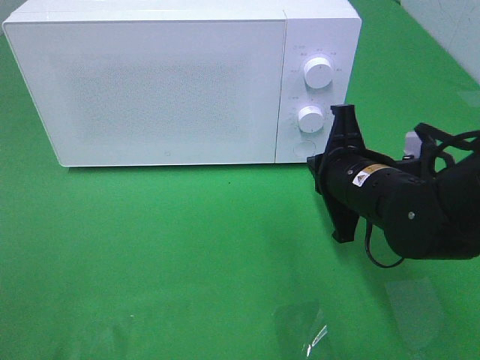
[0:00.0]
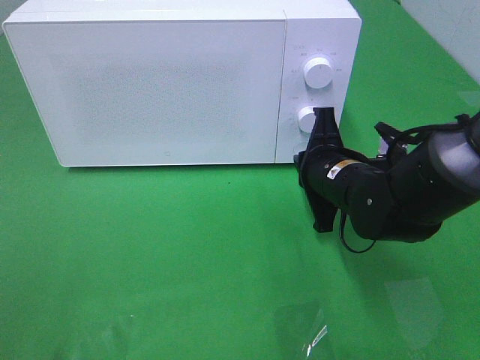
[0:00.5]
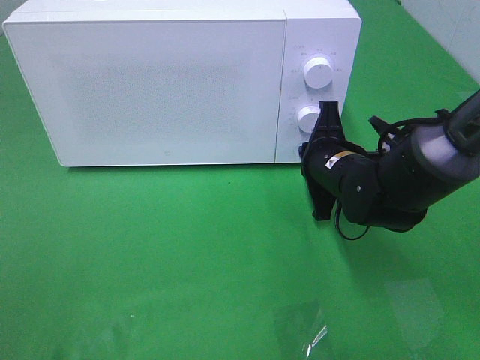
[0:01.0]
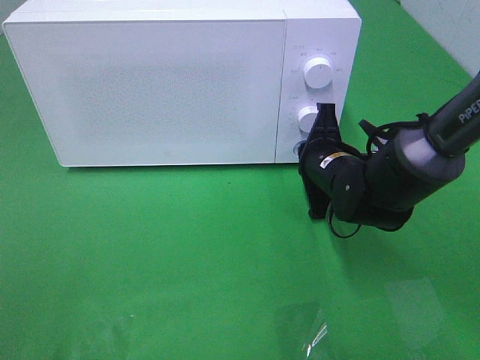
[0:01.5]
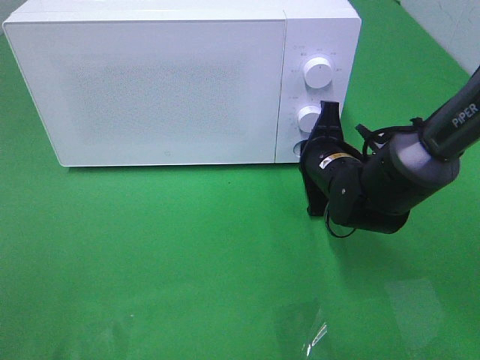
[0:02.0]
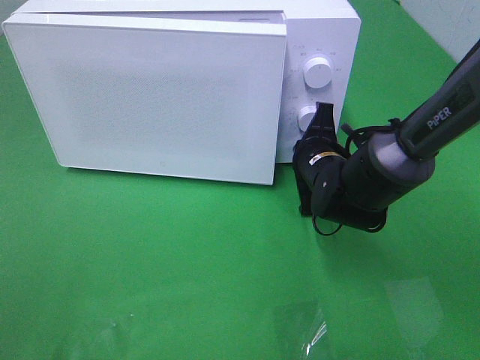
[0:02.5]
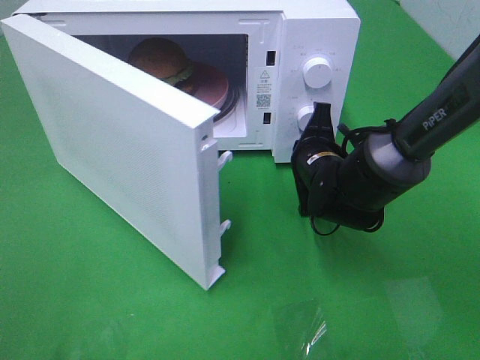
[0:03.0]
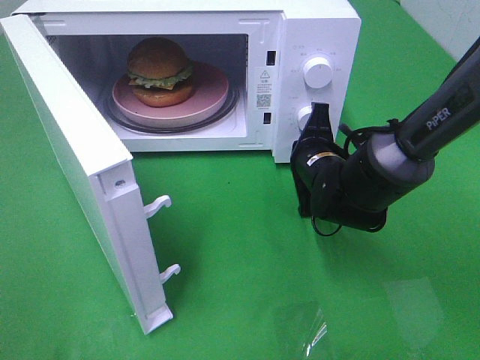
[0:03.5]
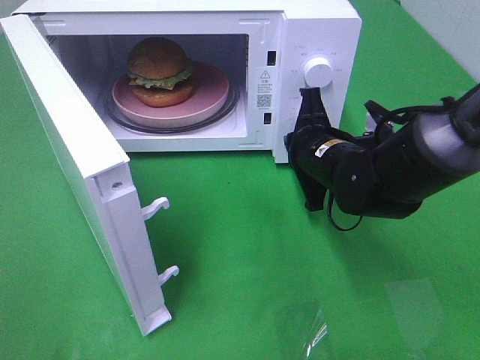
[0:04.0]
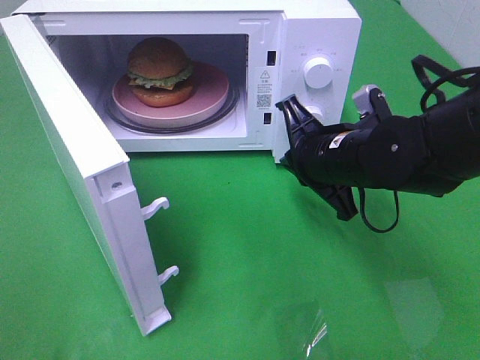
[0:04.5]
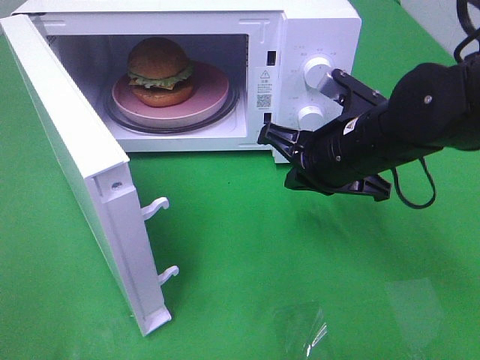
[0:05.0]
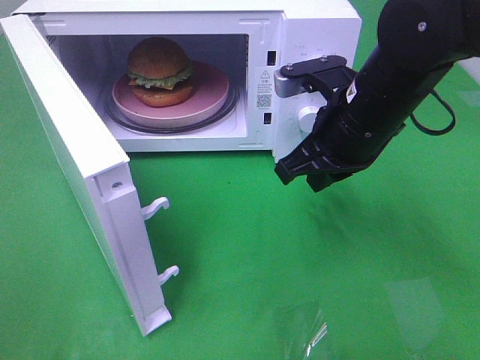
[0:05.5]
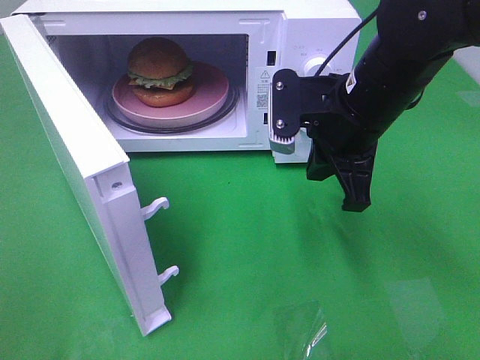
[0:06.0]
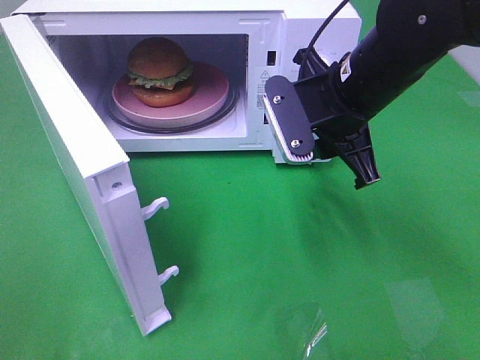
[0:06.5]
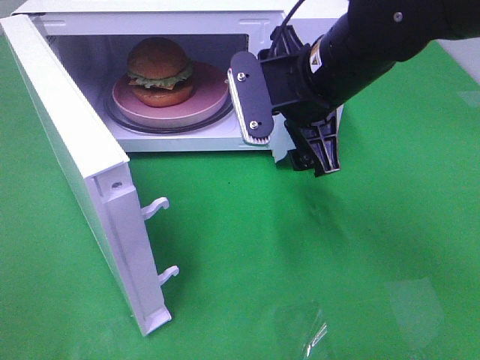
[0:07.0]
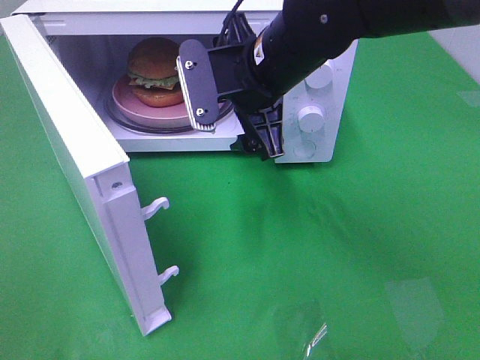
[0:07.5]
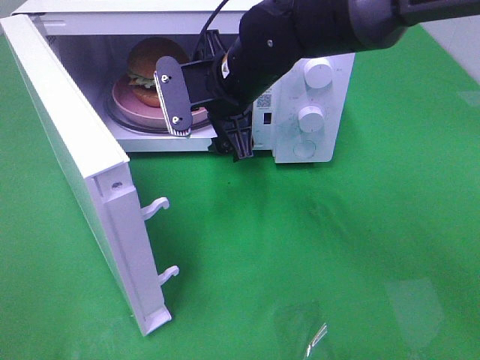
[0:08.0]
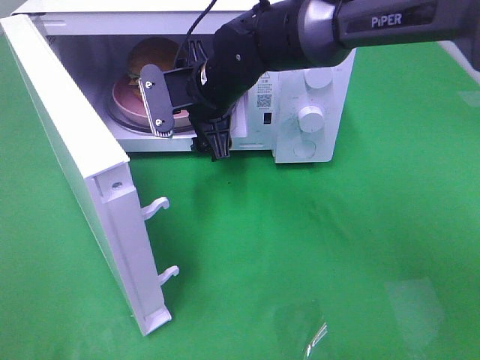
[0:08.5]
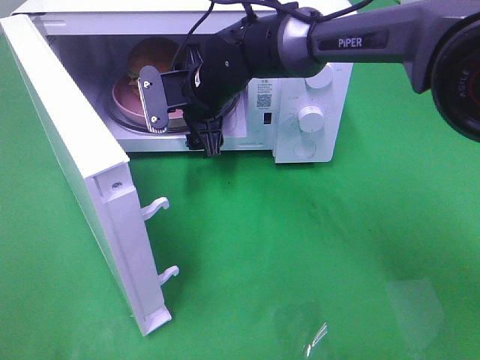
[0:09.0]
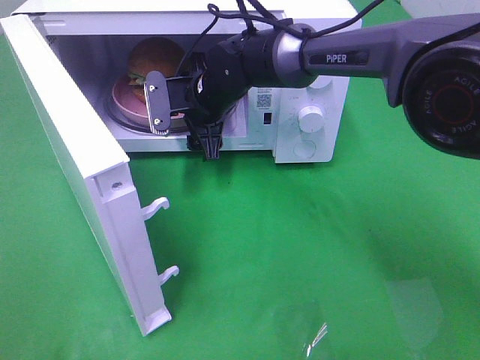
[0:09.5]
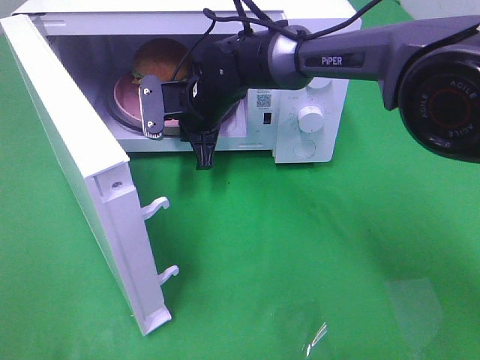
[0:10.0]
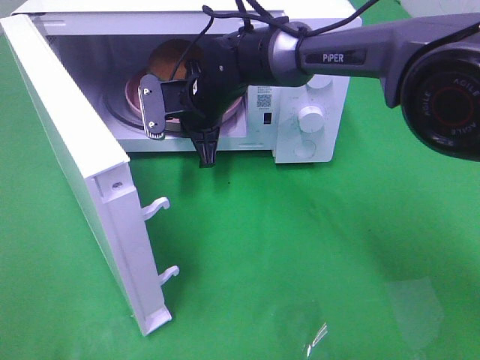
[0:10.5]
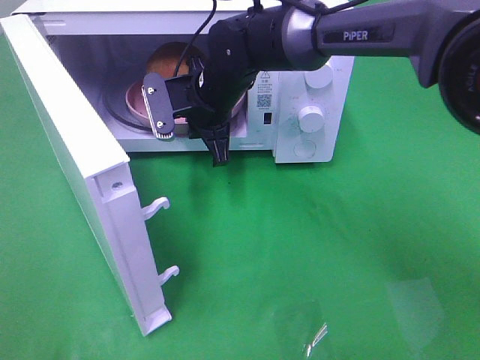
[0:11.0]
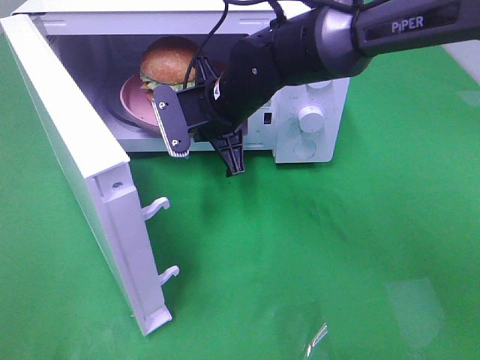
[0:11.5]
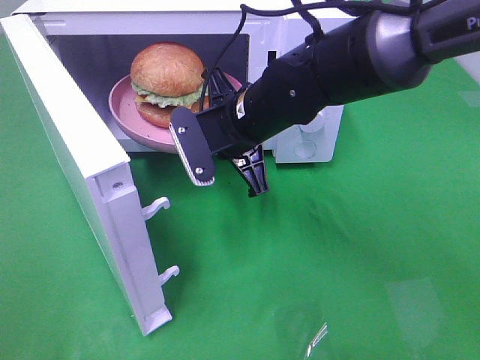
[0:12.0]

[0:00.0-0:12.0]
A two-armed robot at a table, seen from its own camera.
Task of the whole recording: Heat the burger.
Step, 0:00.0 to 0:04.0: Right hand: press the switch.
Step, 0:04.5 to 0:10.0: Right hand: grab the plate with the hamburger.
0:00.0 to 0:02.0: The right gripper is displaced forward by roughly 5 cm.
0:04.0 to 0:06.0: The right gripper shifts some 10 cm upward.
0:06.0 to 0:08.0: The right gripper shifts about 15 cm to the left and forward, and opens.
0:08.0 to 0:10.0: The right gripper travels downward and forward by some 10 cm, and closes.
0:10.0 to 0:12.0: The right gripper is displaced backward and to the right by roughly 10 cm.

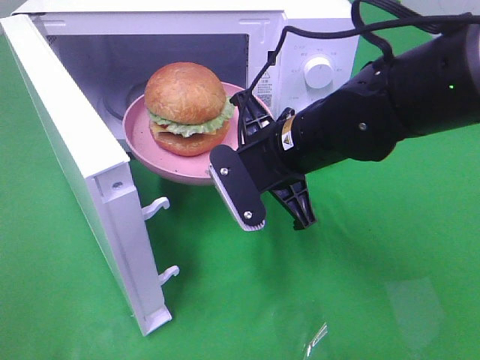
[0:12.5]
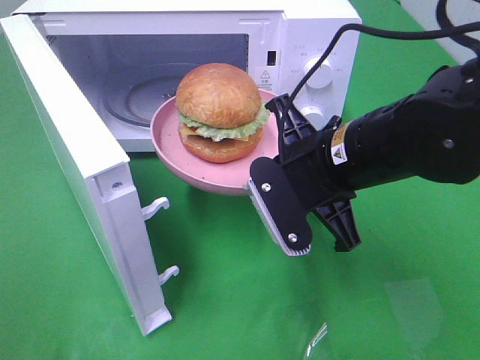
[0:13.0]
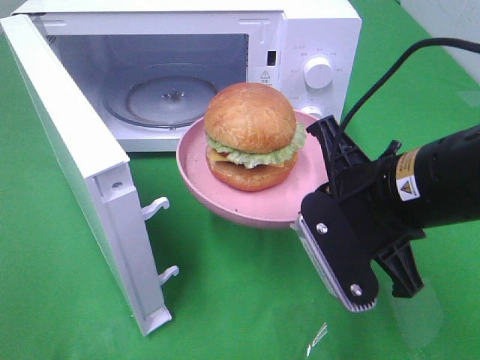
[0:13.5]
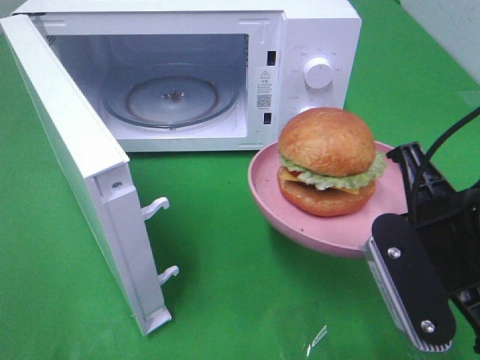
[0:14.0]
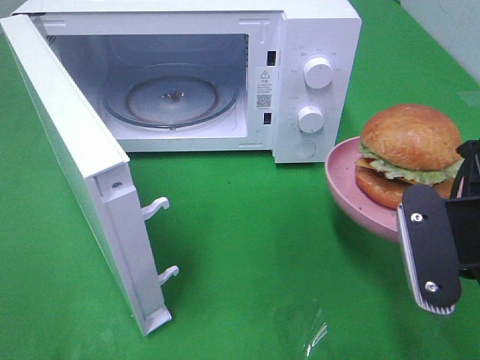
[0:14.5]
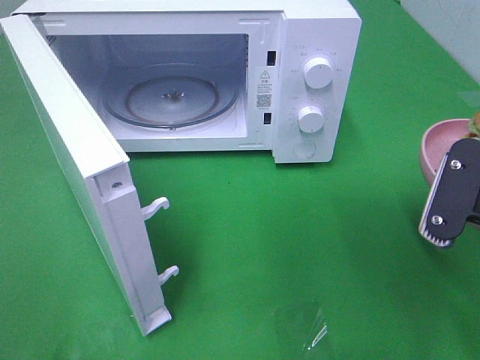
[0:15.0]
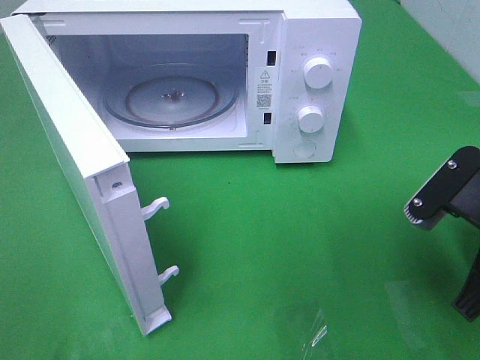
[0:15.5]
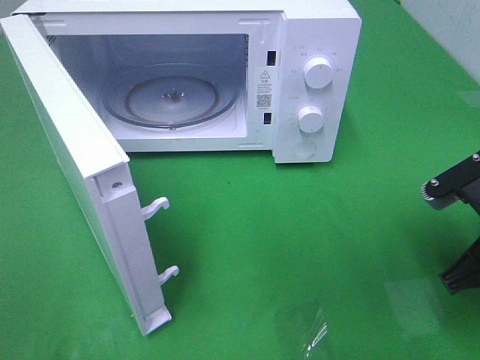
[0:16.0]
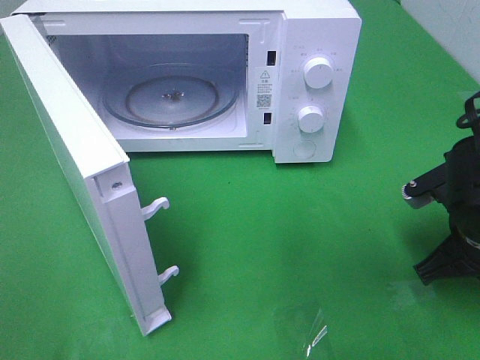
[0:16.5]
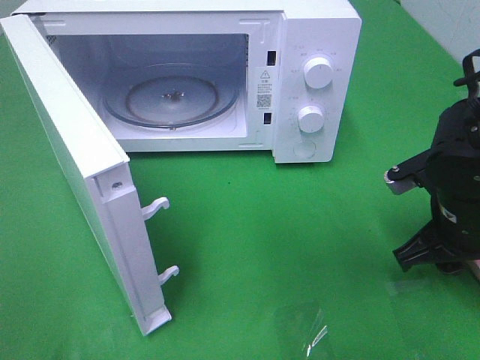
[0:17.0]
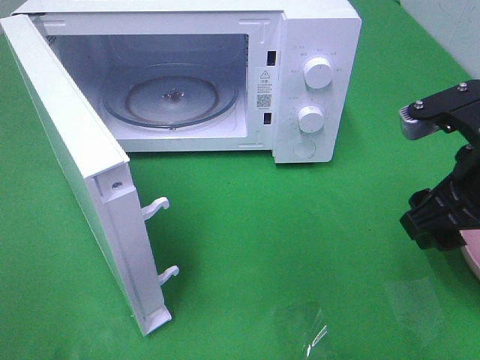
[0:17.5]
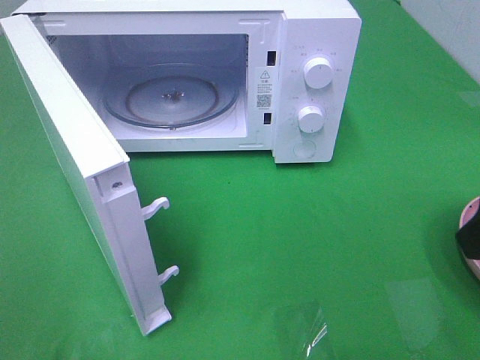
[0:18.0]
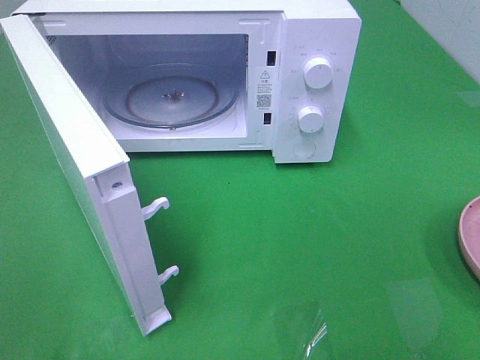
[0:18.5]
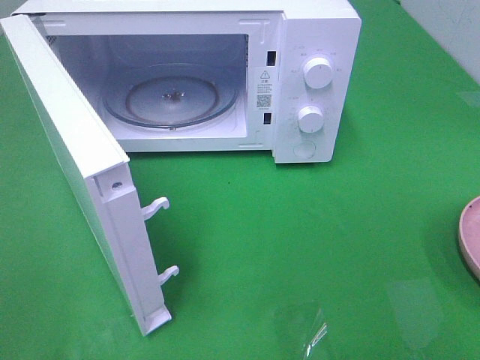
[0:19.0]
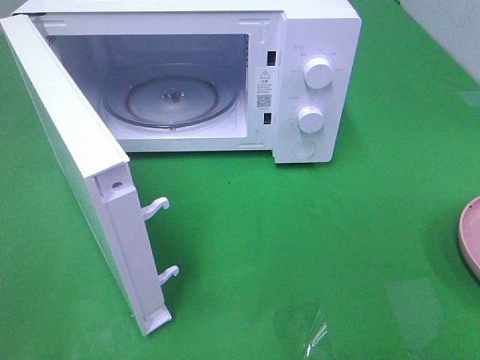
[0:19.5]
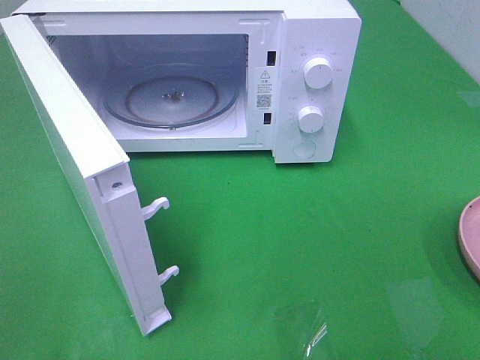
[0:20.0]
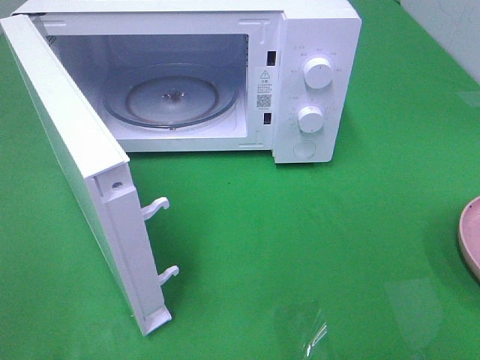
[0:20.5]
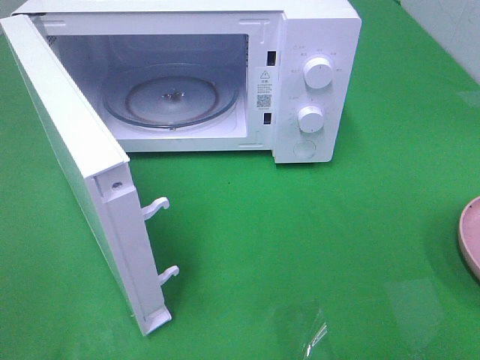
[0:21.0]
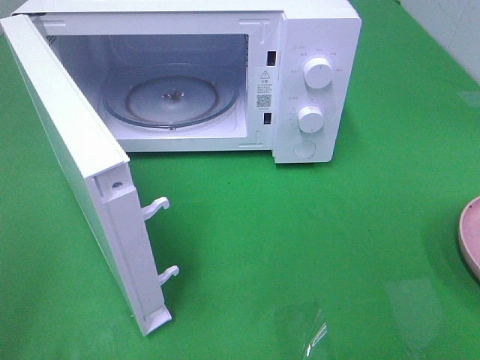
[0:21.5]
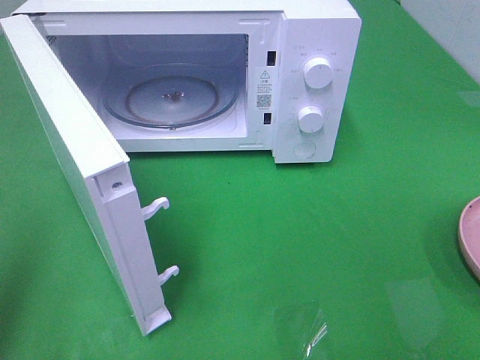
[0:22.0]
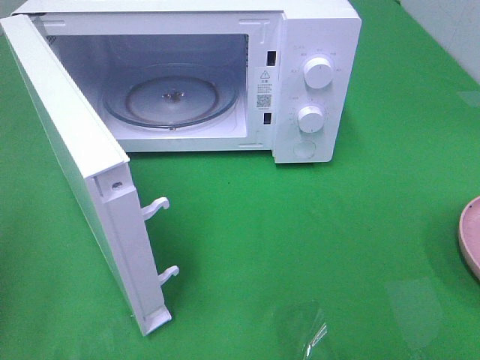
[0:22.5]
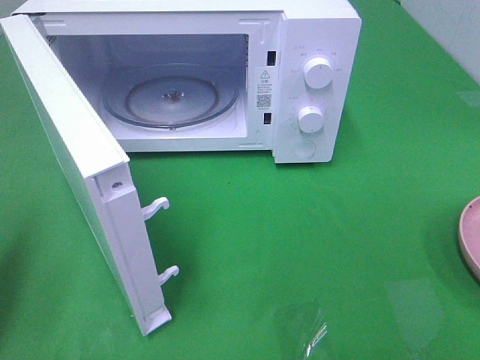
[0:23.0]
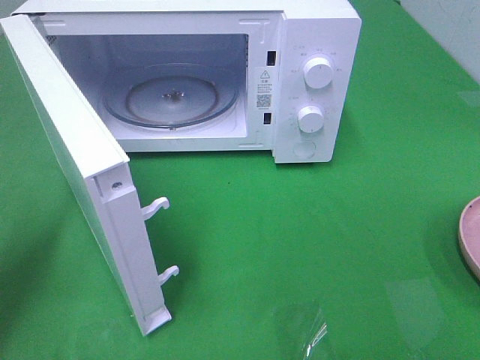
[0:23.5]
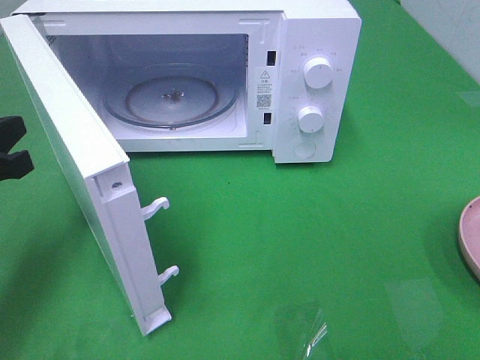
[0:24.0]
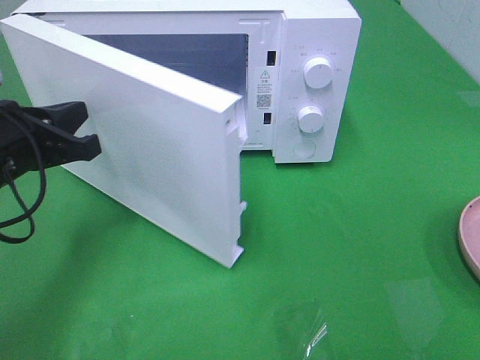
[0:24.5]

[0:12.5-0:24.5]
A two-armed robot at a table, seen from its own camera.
Task of the whole recording: Heat the burger.
Step, 0:12.5 to 0:17.0: Right hand: place the plate on the table.
0:12.5 to 0:14.5: The right gripper goes roughly 20 cm backward and to the right.
0:14.5 to 0:16.5: The right gripper goes approximately 10 cm downward and forward.
0:16.5 to 0:18.5: The right gripper heads upward and backward, covering approximately 25 cm, and opens its fingers.
0:22.5 to 0:24.5: The left gripper shifts some 20 cm forward, to the right and downward.

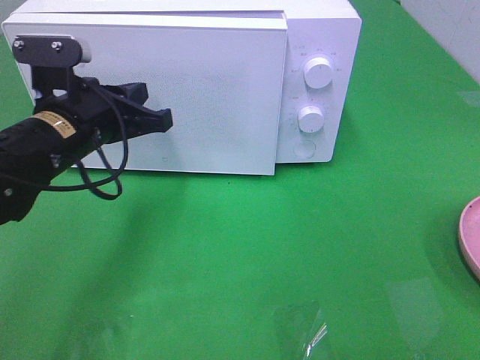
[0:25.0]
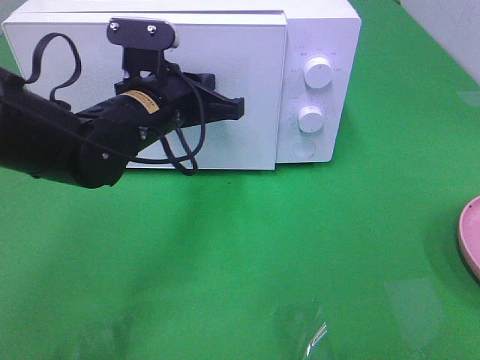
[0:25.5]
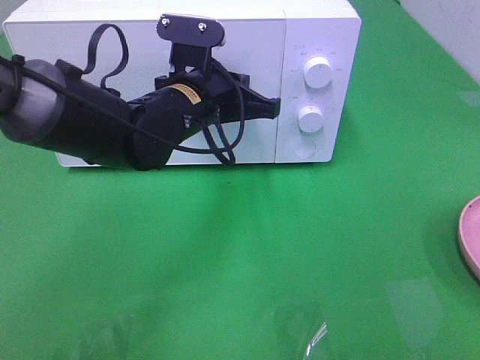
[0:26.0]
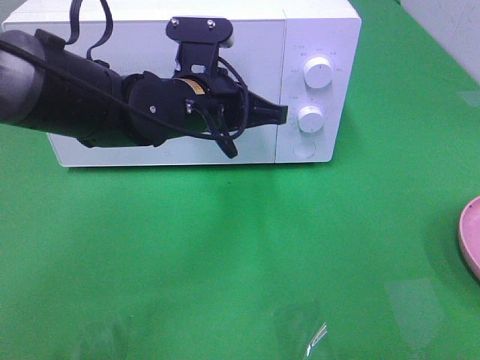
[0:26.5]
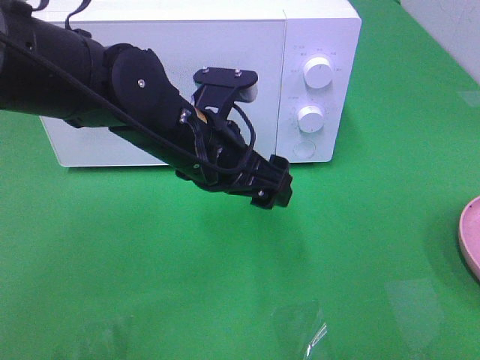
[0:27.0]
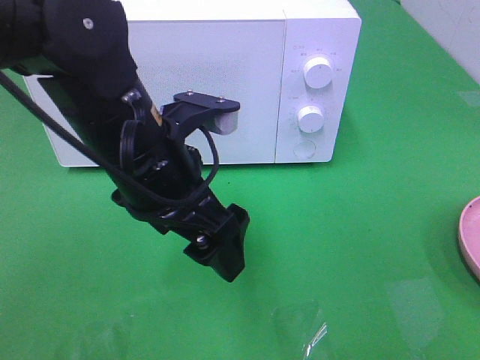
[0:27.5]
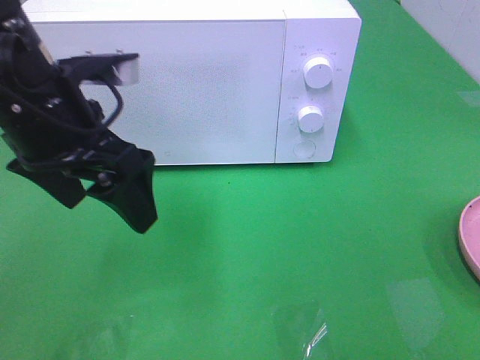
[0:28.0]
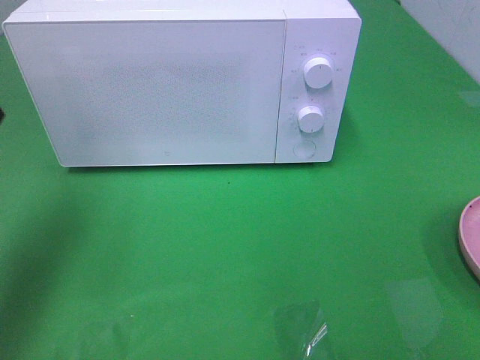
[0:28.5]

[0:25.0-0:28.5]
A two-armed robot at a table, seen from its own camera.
Task of the whole recording: Heat the burger.
0:25.0 to 0:27.0: The left gripper goes approximately 10 cm to the right, and opens.
0:27.0 to 0:28.5: The left gripper goes roughly 30 cm to the left and upward.
